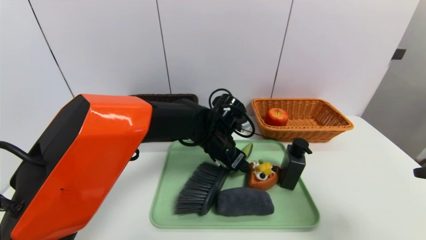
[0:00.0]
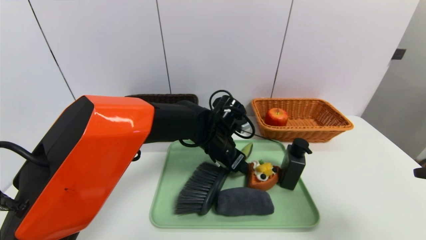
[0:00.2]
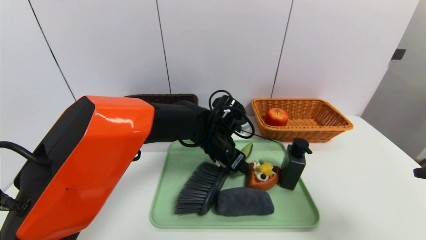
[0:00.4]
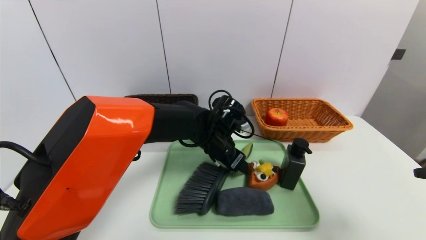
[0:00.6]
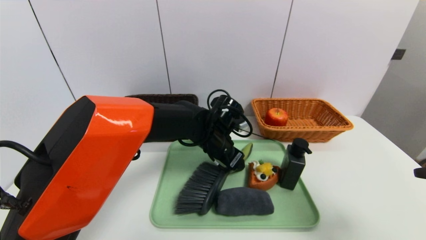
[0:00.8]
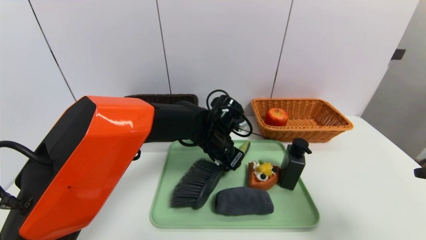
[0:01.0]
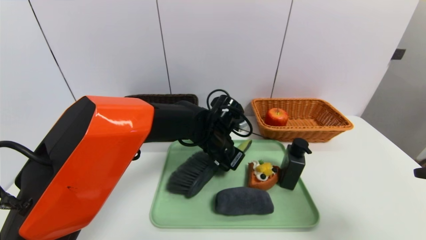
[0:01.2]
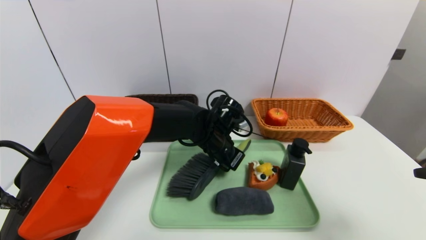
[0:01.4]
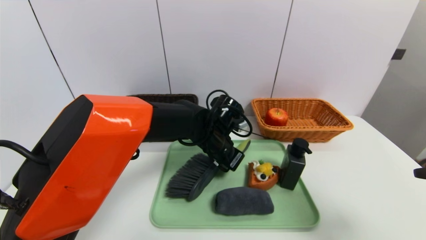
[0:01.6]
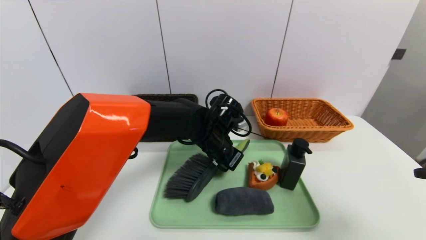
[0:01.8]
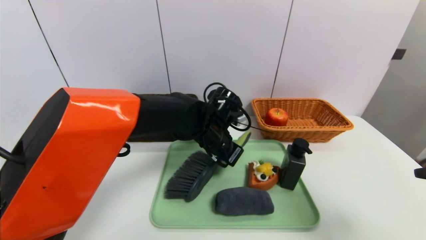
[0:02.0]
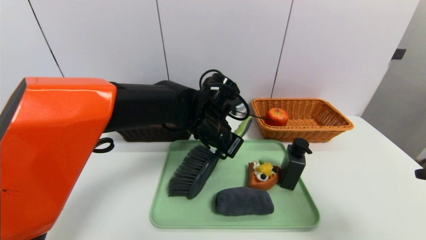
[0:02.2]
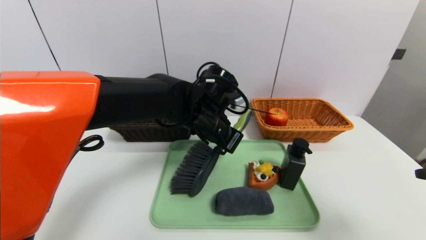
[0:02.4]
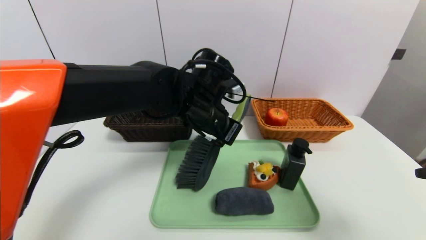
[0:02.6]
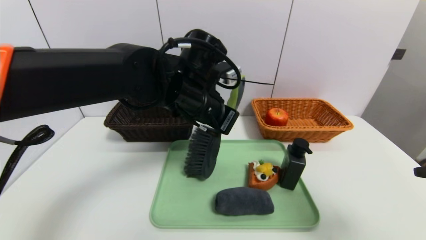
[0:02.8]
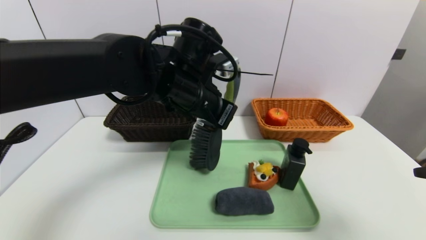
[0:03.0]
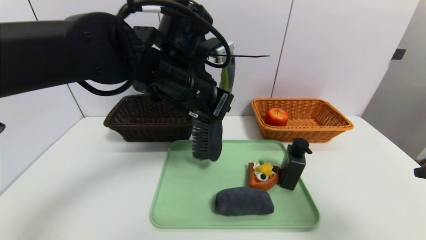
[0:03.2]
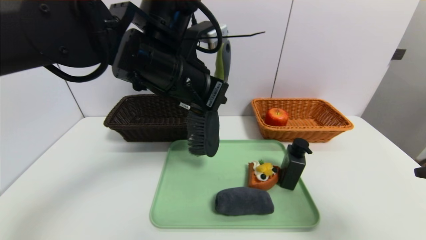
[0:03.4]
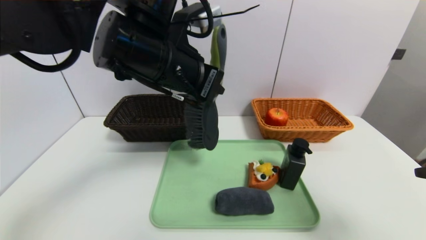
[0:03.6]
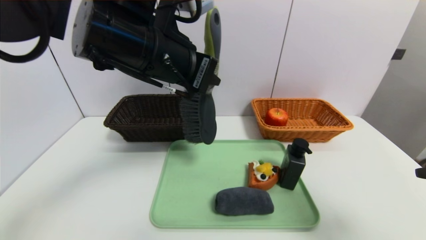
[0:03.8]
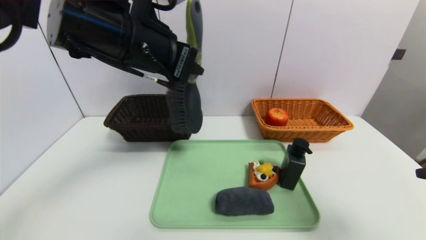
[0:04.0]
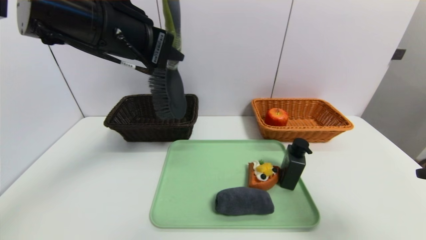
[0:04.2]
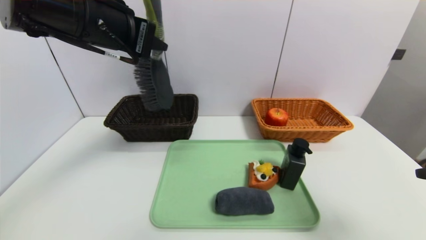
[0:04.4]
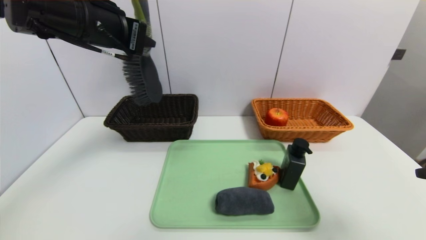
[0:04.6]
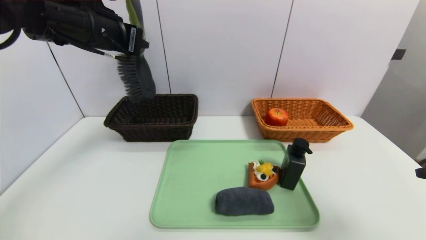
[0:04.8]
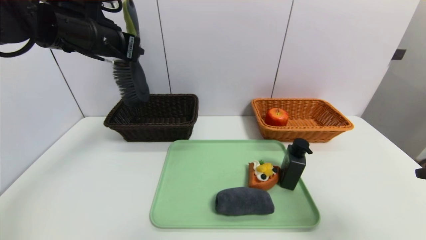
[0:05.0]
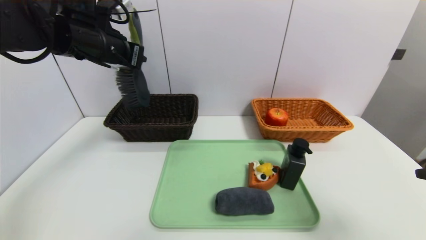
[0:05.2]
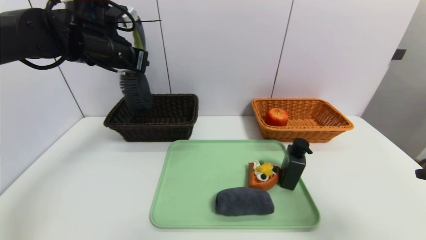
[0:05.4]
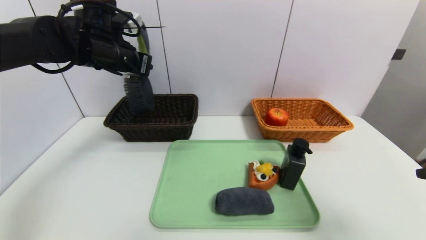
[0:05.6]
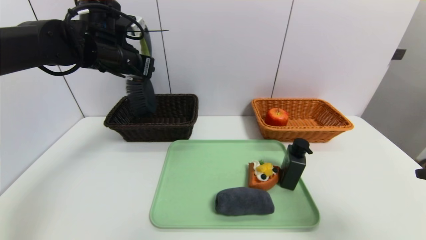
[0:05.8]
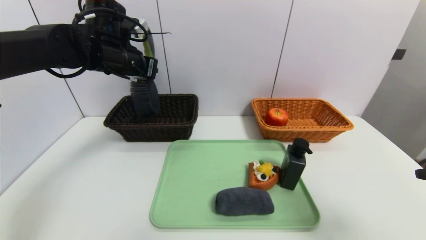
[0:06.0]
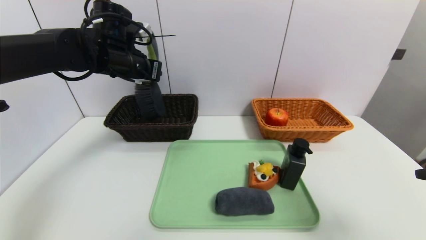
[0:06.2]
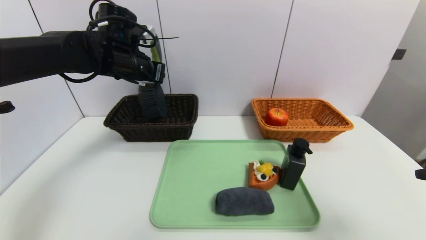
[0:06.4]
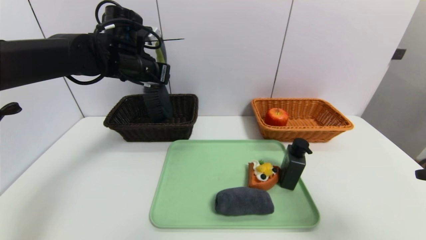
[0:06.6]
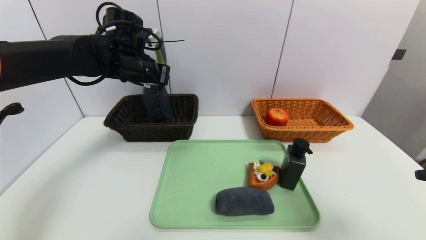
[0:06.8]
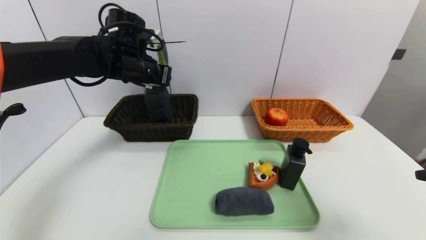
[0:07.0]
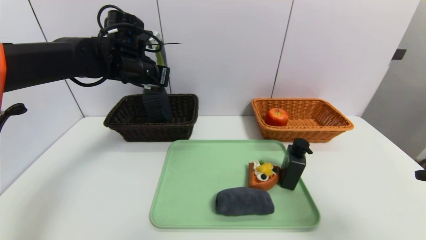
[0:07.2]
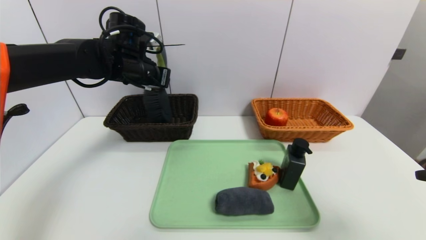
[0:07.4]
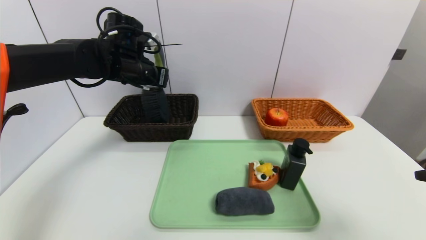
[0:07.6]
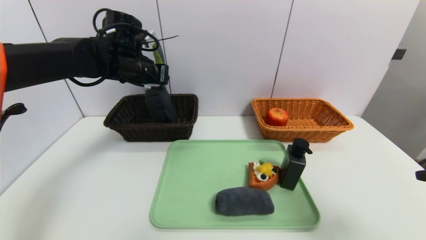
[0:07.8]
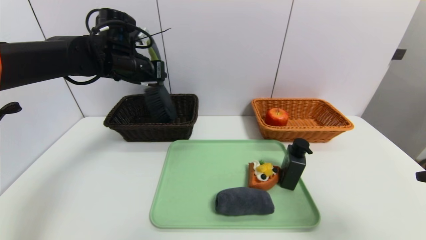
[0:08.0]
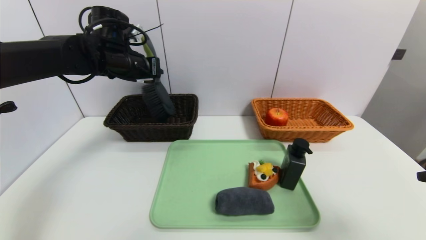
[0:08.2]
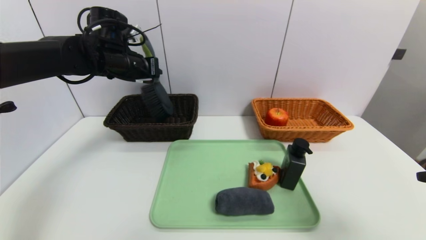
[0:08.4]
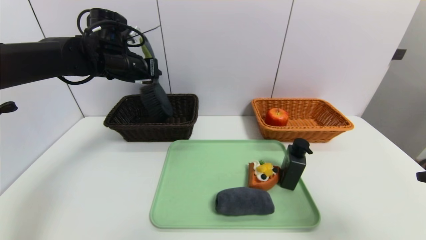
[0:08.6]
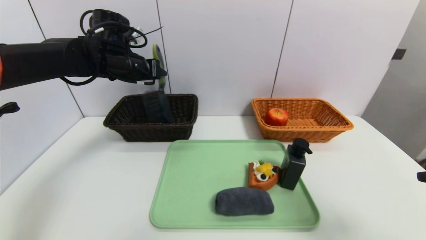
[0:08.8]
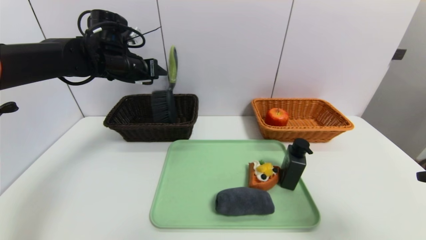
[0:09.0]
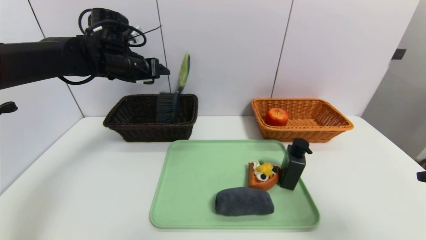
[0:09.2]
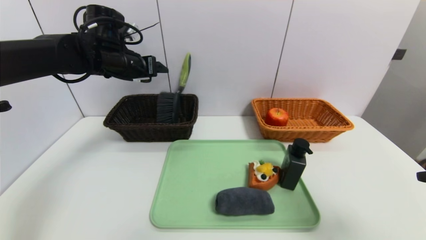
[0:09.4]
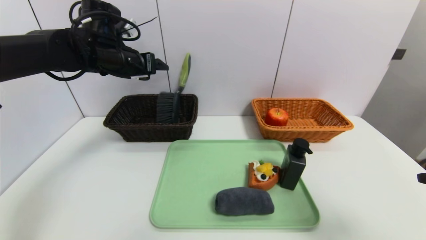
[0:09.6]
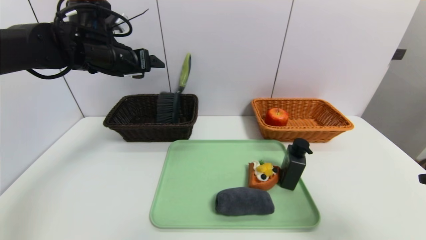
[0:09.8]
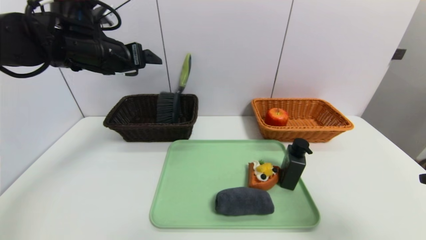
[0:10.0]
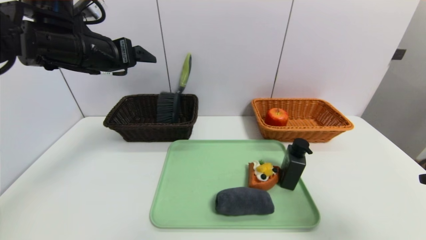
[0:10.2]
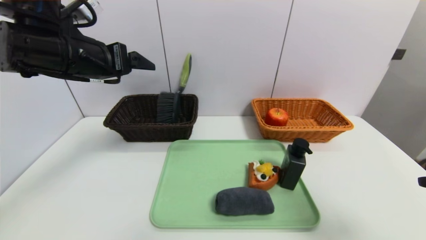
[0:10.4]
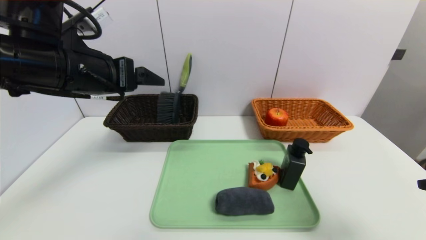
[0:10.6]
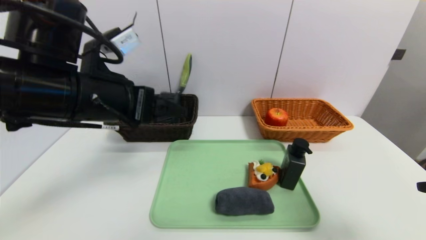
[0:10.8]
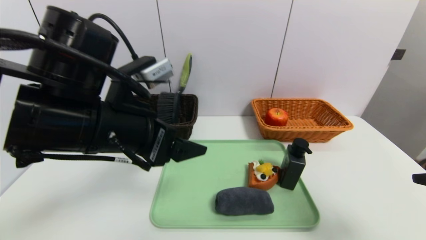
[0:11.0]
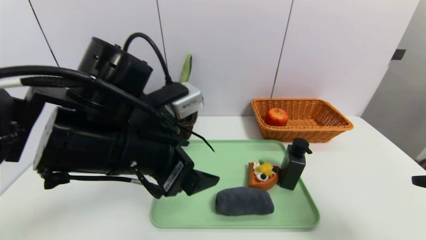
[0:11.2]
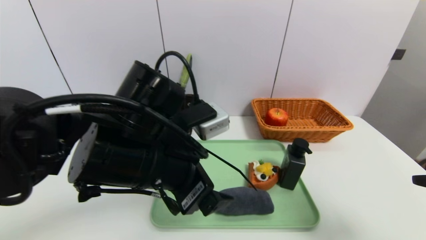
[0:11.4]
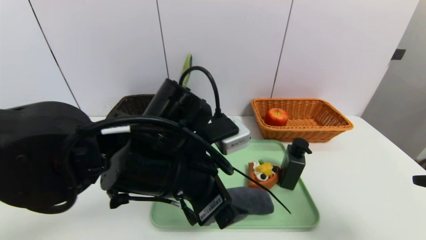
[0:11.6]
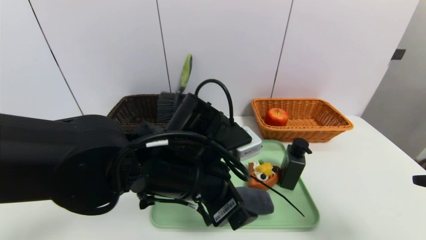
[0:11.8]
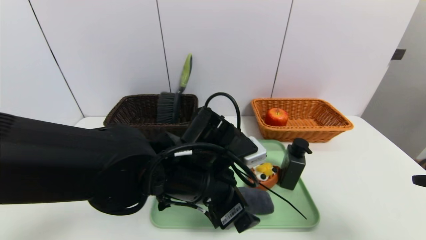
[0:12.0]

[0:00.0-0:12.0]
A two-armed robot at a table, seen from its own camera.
Task of the whole recording: place the food in the right basket with the right gripper, and place the non food items in the left basket with the left gripper.
Step, 0:00.0 to 0:09.4: Grasp the brush and put it in the left basket.
0:00.0 to 0:01.6: The left gripper closes its fingers.
0:01.6 to 0:03.0: The left gripper moves upward, about 15 cm.
0:03.0 to 0:04.4: The left gripper shifts about 15 cm to the left and upward.
0:04.4 to 0:06.0: The left gripper shifts about 15 cm forward and downward.
0:06.0 to 0:07.6: The grippers move only a little.
0:07.6 to 0:09.0: The left gripper opens up.
0:09.0 to 0:10.4: The left gripper moves backward, about 15 cm.
0:10.4 to 0:12.0: The left gripper goes about 25 cm to the right and downward.

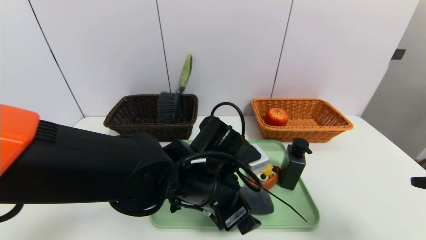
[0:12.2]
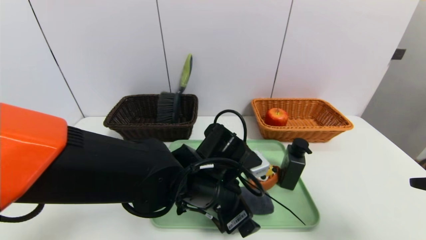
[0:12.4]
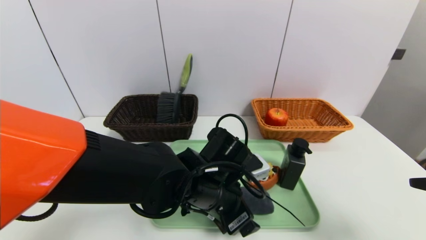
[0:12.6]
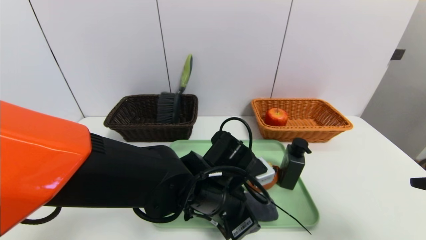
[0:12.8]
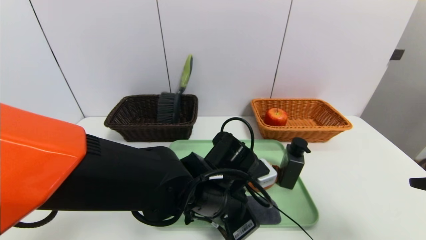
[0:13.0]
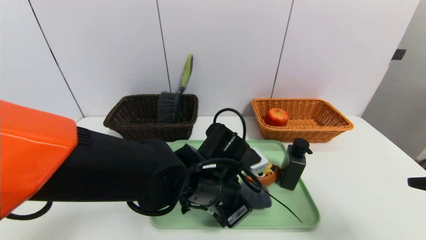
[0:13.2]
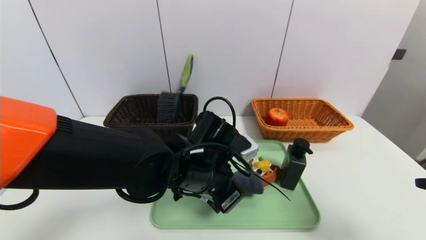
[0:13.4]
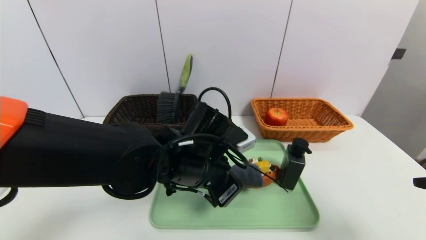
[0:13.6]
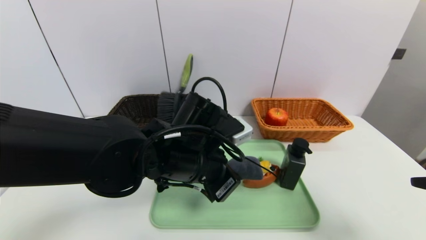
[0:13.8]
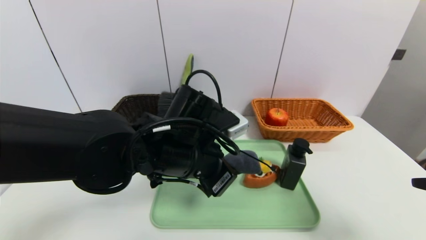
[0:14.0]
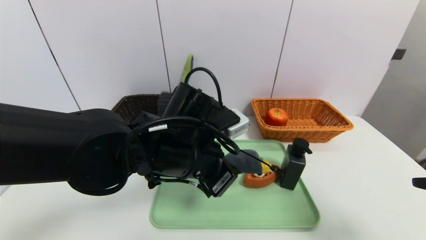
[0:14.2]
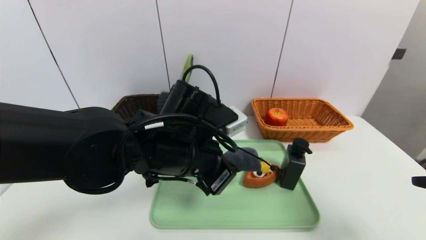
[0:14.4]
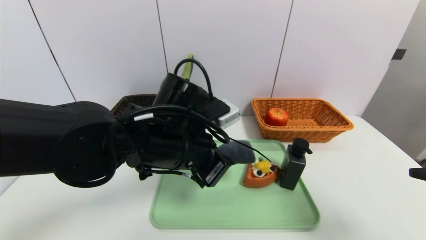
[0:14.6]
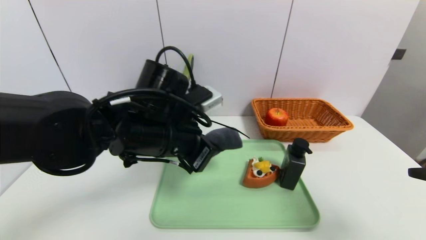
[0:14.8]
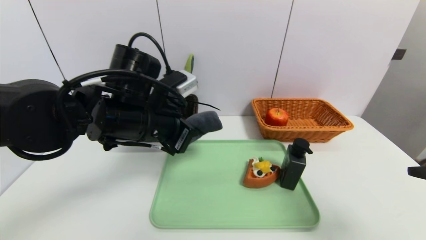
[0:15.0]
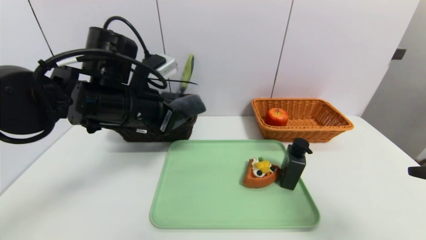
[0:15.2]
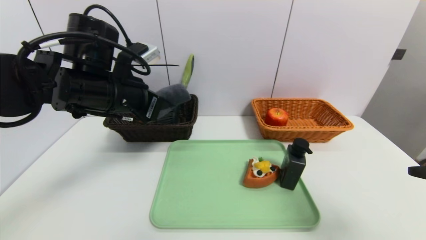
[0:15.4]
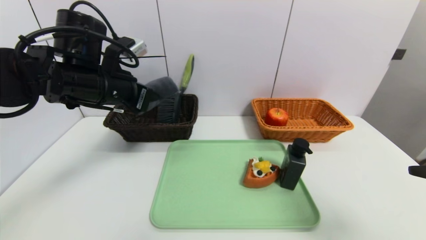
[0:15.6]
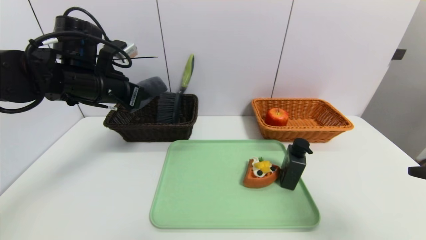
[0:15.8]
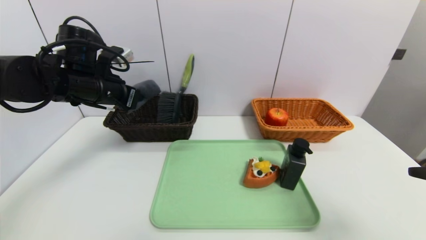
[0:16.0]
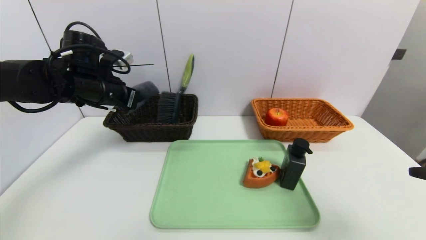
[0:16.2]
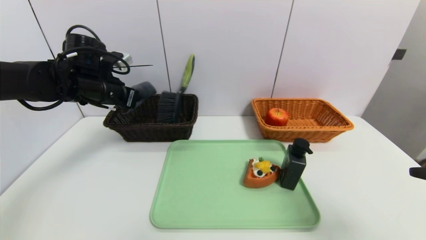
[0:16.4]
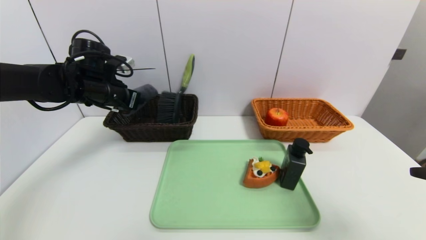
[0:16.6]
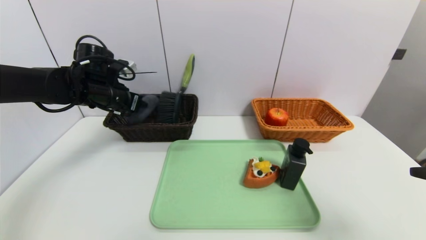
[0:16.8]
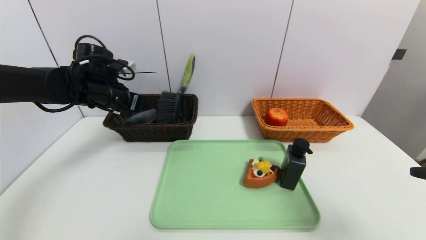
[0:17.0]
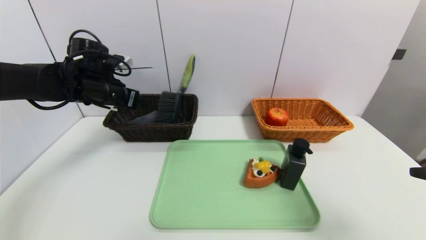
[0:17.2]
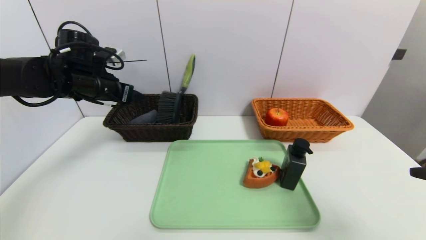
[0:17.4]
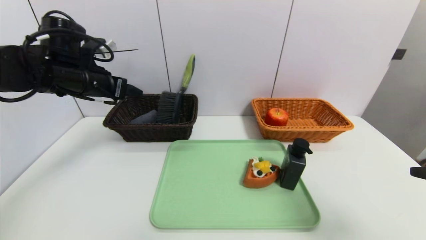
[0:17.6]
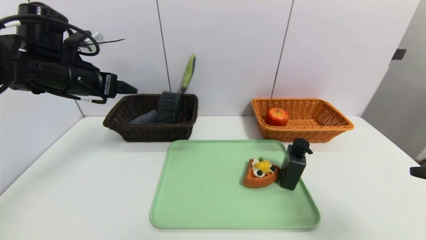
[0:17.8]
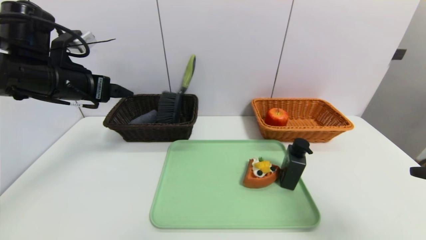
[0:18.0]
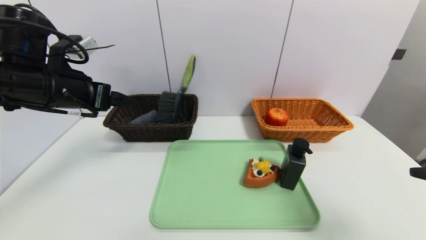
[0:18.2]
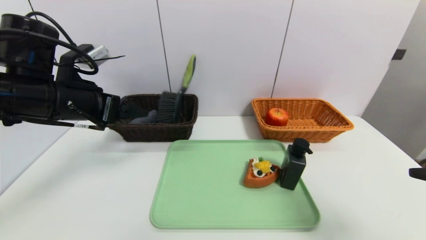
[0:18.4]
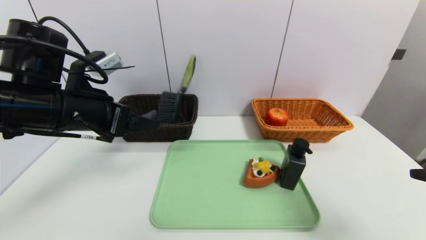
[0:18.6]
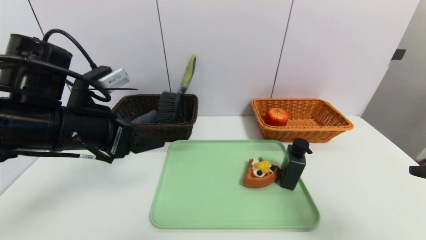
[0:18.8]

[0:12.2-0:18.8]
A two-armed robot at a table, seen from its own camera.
Task of the whole recording: place the food in the right basket with the right gripper, and place the non food items in the left basket with the left gripper.
Step, 0:12.2 to 0:17.4: Grasp the grey towel and put it in the left basket.
0:12.2 to 0:13.8: The left gripper closes up.
0:13.8 to 0:15.4: The left gripper goes approximately 15 cm to the left, upward and forward.
0:15.4 to 0:17.2: The left gripper goes roughly 15 cm forward and to the left, and opens its fingers.
0:17.2 to 0:18.8: The left gripper shifts some 15 cm backward.
